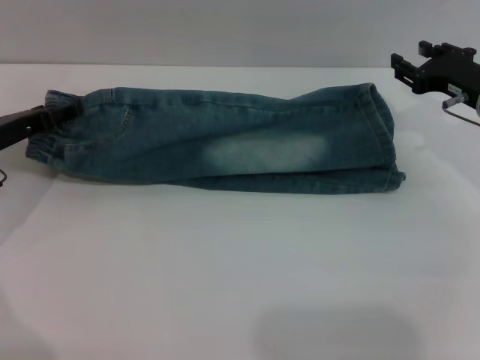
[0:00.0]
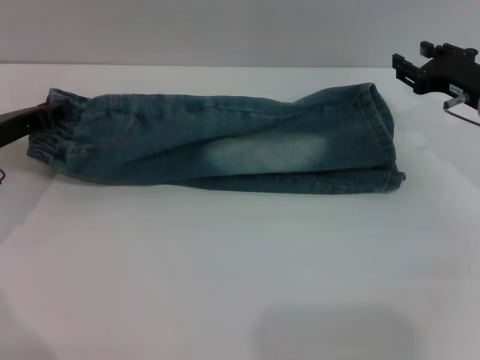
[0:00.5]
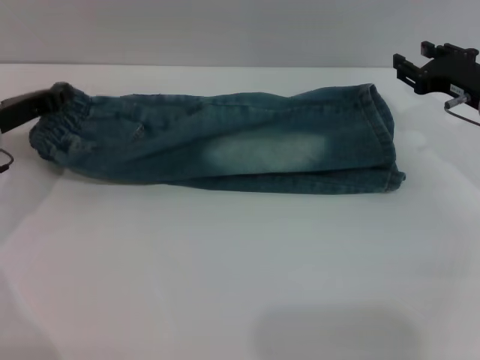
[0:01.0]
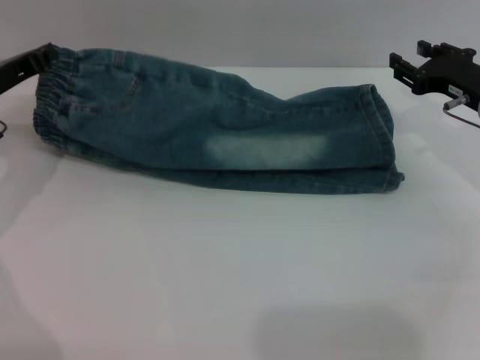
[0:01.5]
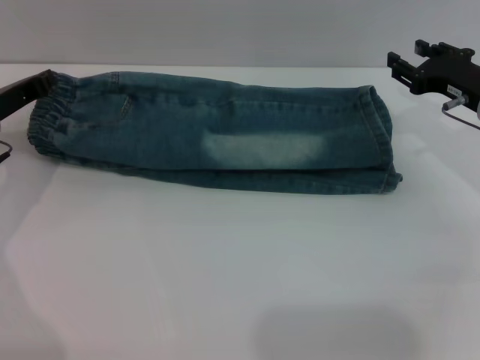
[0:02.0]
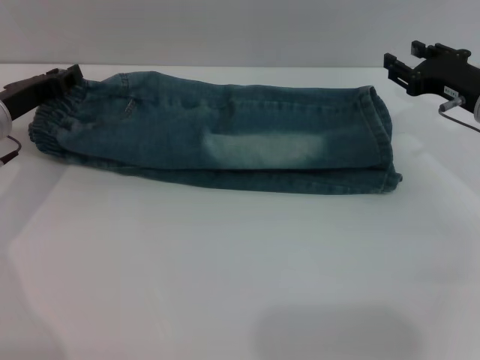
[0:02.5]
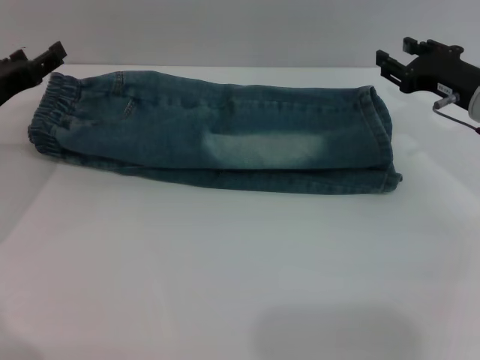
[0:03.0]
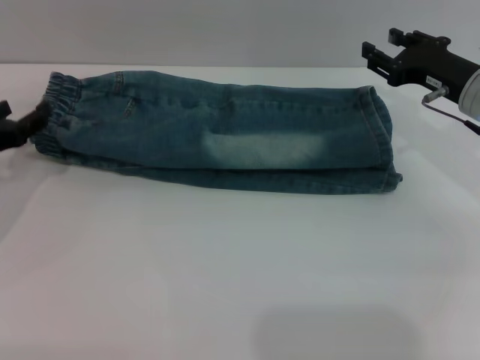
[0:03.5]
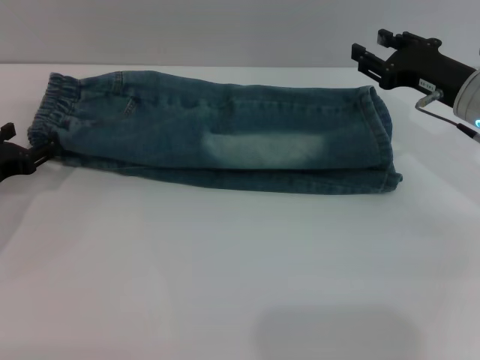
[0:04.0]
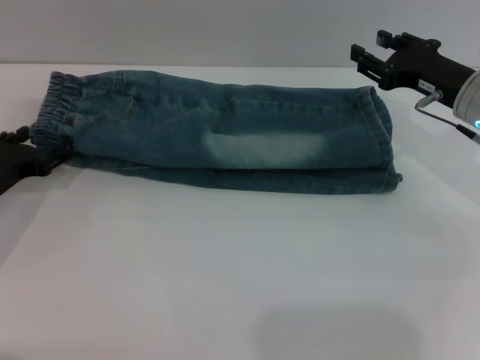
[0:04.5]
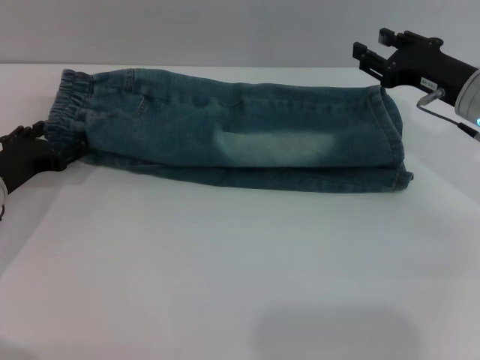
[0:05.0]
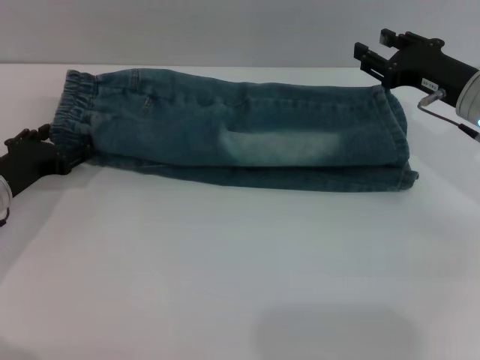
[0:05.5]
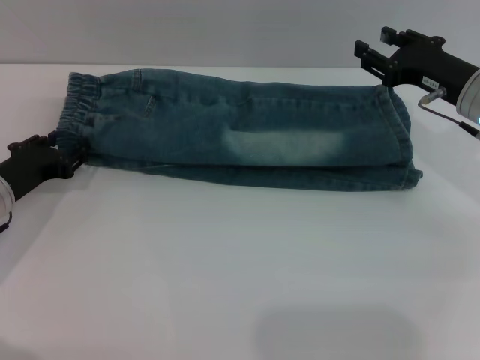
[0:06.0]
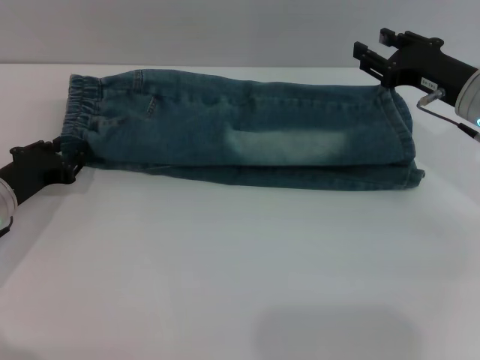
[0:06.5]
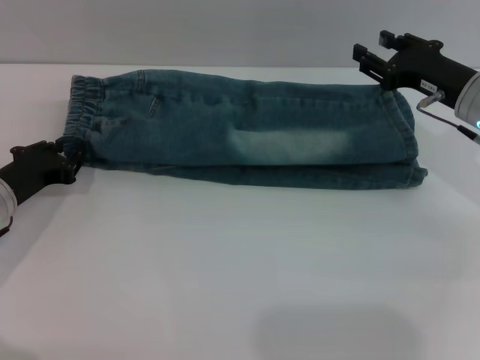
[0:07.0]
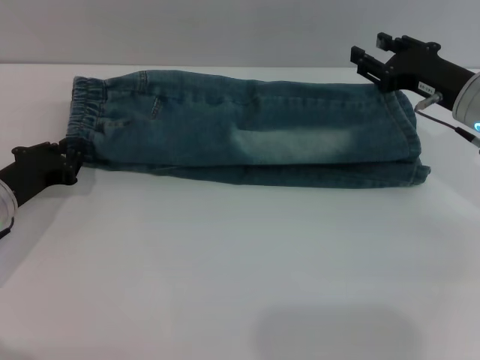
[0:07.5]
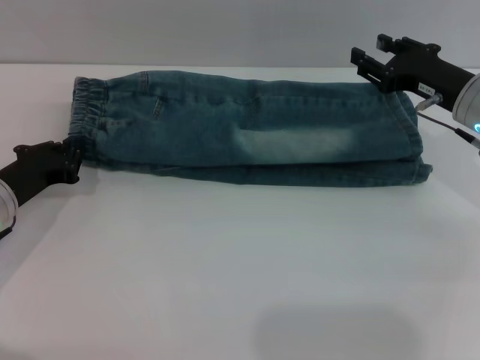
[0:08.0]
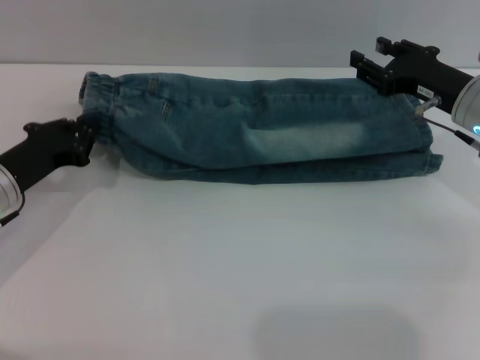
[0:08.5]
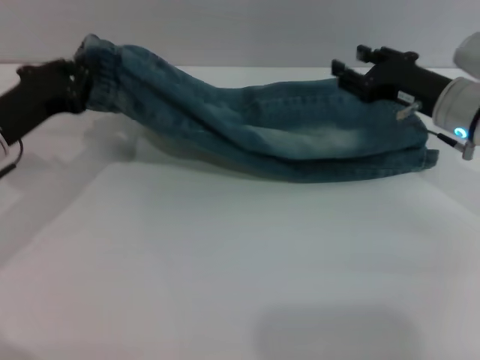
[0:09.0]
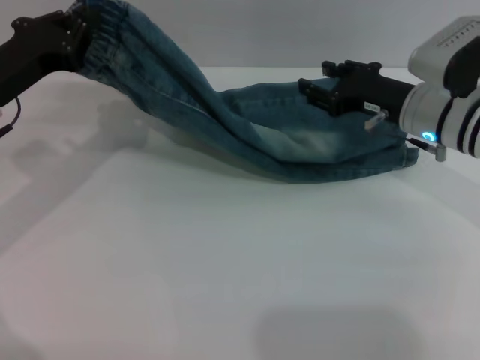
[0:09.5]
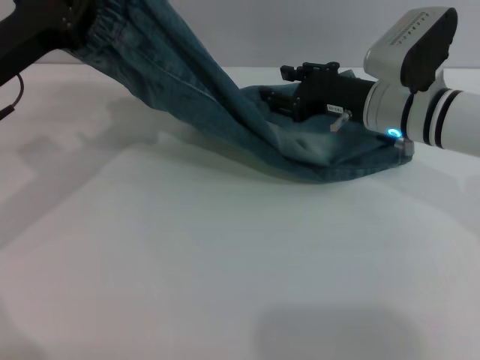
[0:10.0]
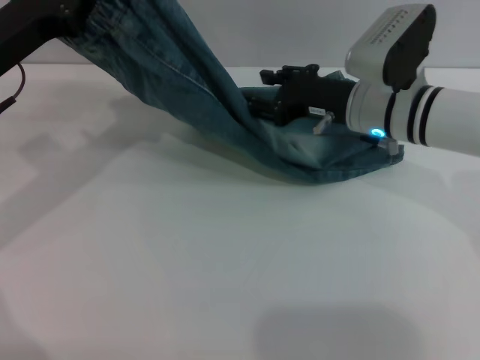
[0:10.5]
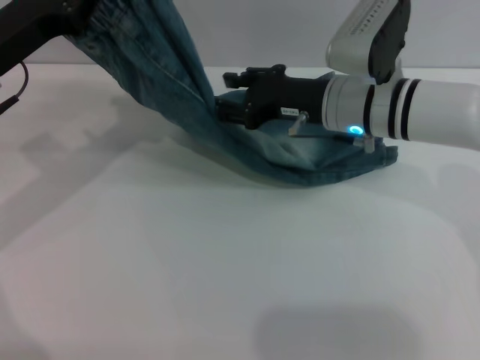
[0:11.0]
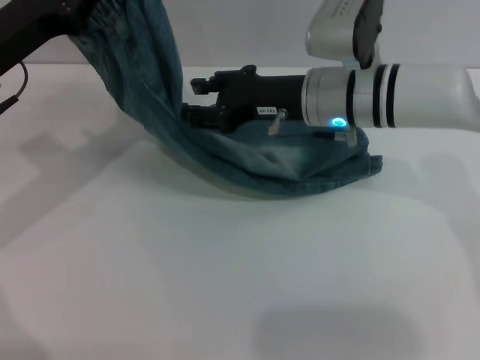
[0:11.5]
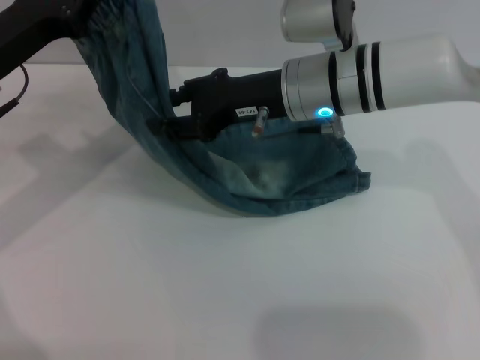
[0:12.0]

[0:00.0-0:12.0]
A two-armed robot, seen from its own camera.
0:00.0 to 0:02.0: The left gripper closes.
0:02.0 to 0:04.0: The left gripper moves backward, roughly 5 cm, and opens its fingers.
0:04.0 to 0:06.0: The grippers move only a little.
0:06.0 to 0:08.0: The left gripper closes its fingers.
0:08.0 to 0:10.0: The left gripper shifts some 10 cm upward. Meanwhile the right gripper moves to the left, about 10 cm.
0:10.0 to 0:12.0: The right gripper shifts approximately 10 cm to the left and upward.

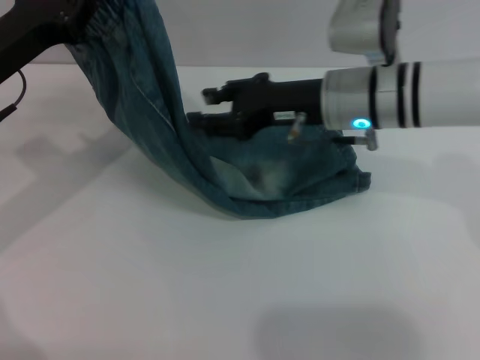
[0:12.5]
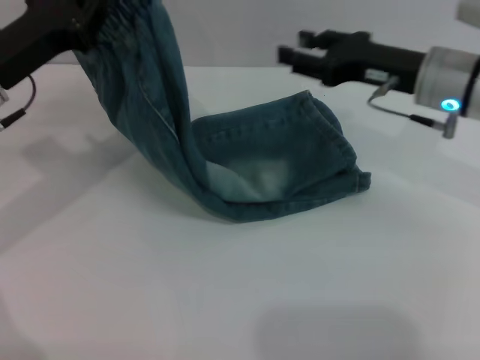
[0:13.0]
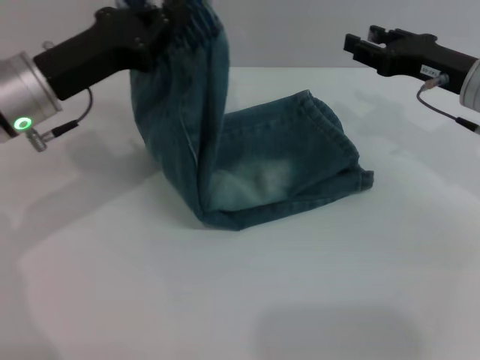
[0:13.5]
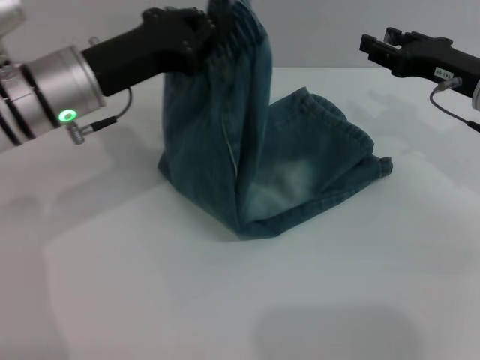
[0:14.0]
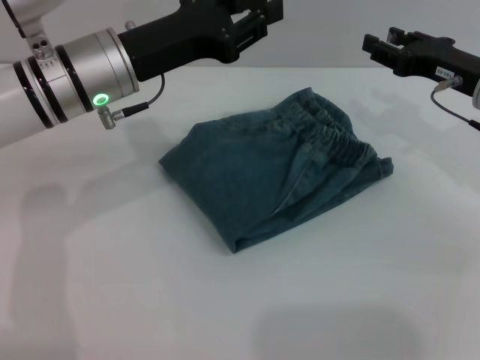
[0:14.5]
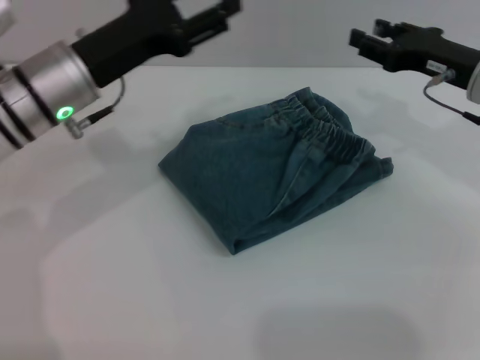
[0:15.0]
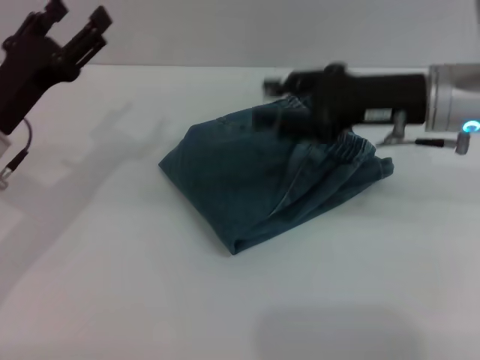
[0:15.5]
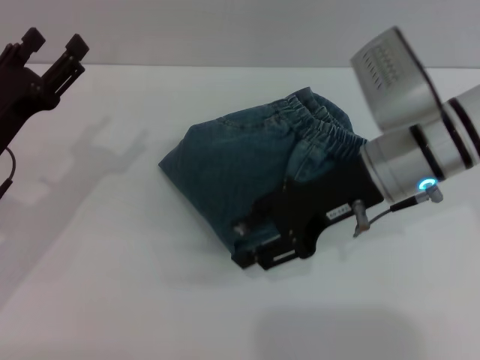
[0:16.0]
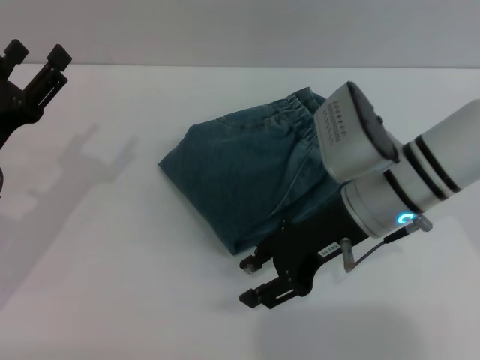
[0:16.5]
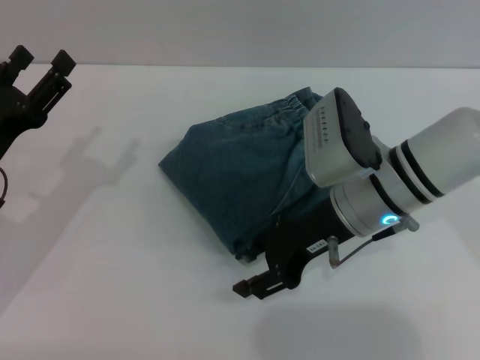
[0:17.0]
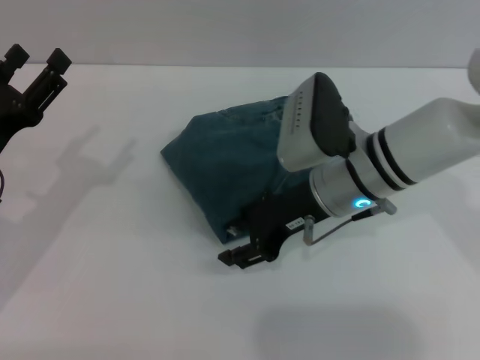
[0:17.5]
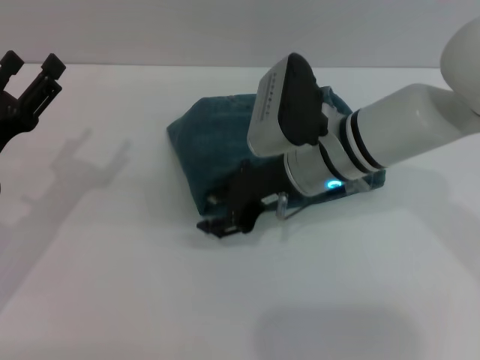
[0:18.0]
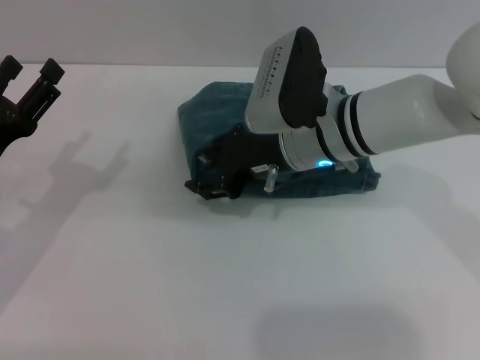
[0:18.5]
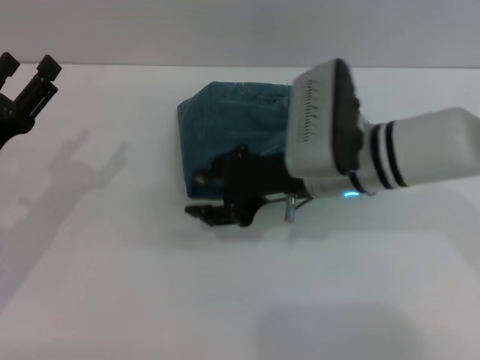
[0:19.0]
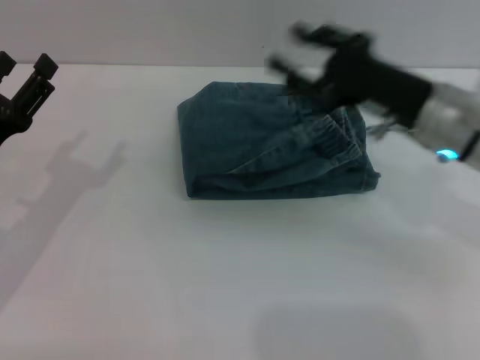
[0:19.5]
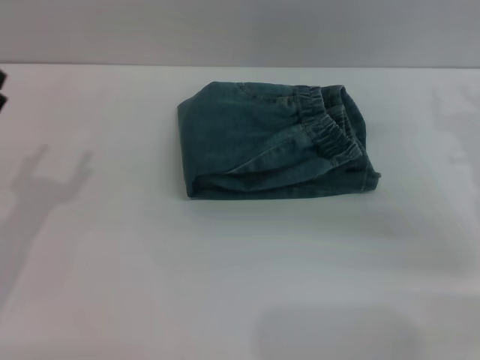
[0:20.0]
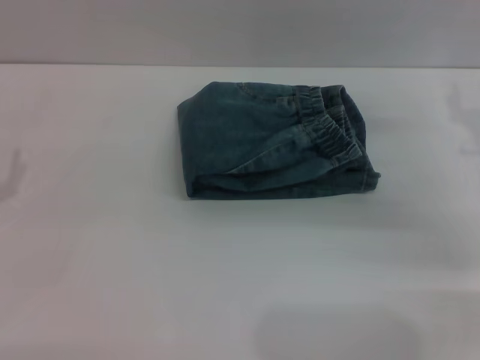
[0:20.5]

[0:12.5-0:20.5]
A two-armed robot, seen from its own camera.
Step, 0:12.5 to 0:14.5: Fold the pants from left to right with the left gripper.
Step, 0:15.0 to 0:19.0: Place the folded trousers onto the center area with the right grippers.
0:12.5 to 0:14.5: The grippers both shift to the right by some 15 cm.
0:14.5 to 0:16.5: The right gripper goes some 15 cm to the left and backward; the left gripper shifts roughly 20 cm to the left, backward and downward, and opens its fingers.
0:16.5 to 0:18.5: The right gripper goes about 5 cm to the left.
0:18.5 to 0:20.5: The left gripper changes place by some 5 cm. Meanwhile the right gripper is displaced to the right by about 20 cm.
